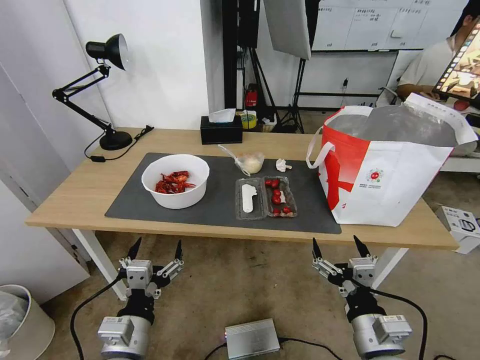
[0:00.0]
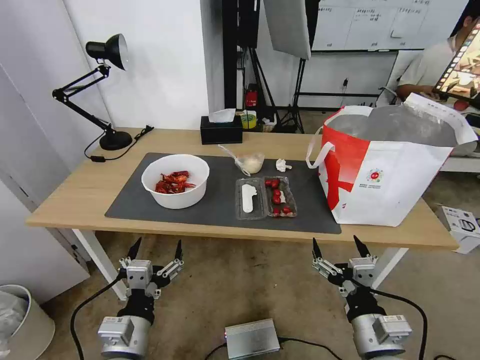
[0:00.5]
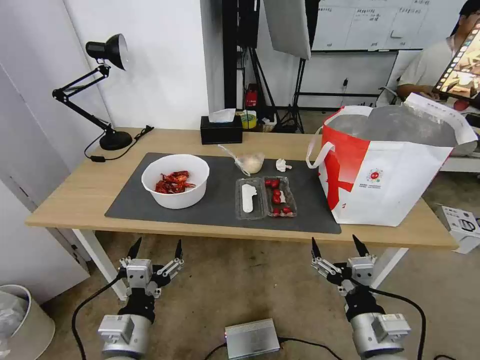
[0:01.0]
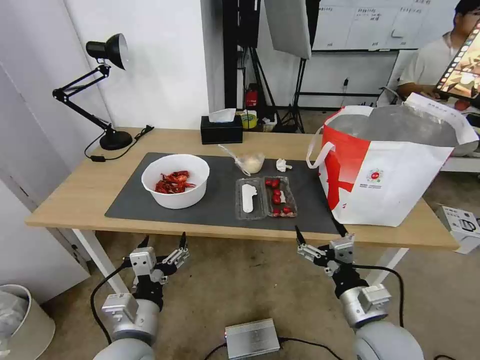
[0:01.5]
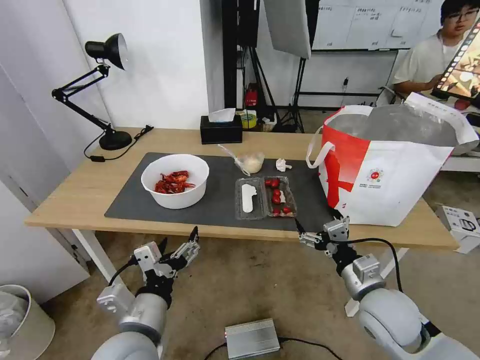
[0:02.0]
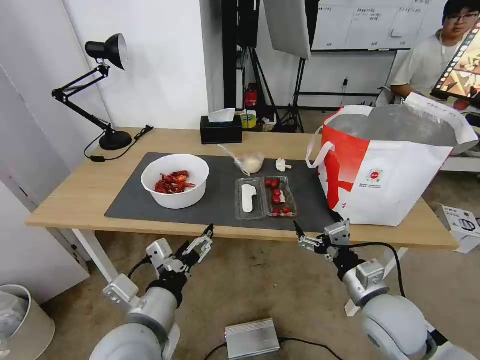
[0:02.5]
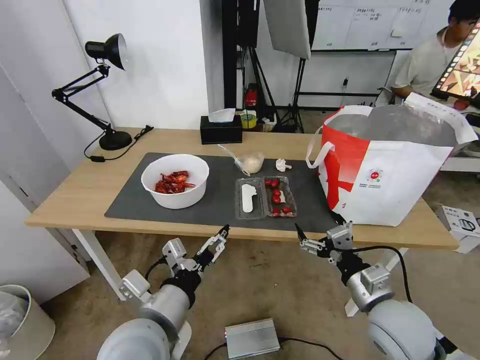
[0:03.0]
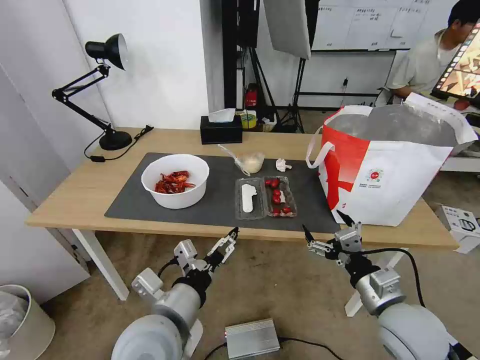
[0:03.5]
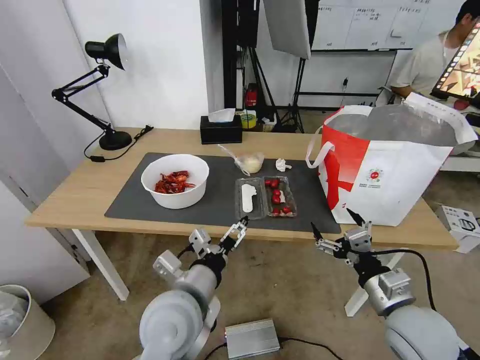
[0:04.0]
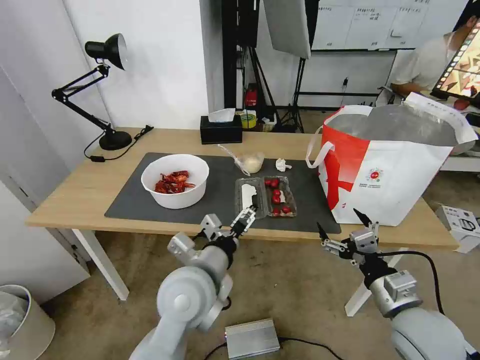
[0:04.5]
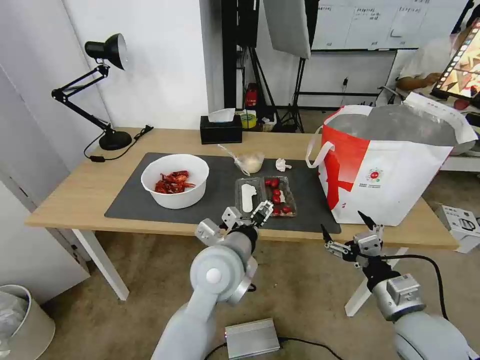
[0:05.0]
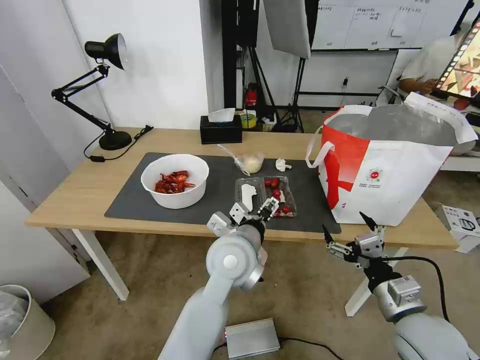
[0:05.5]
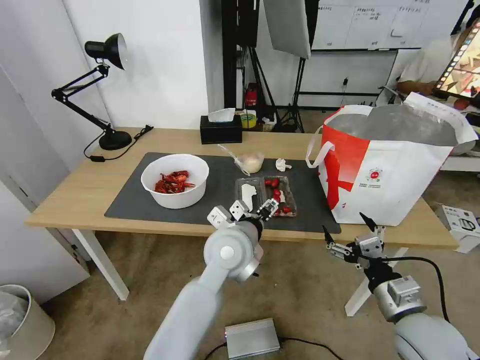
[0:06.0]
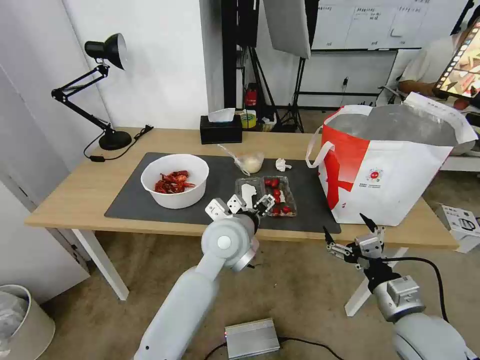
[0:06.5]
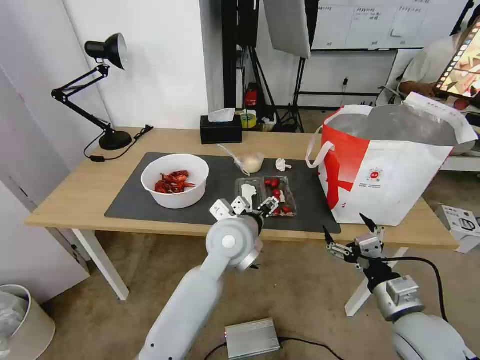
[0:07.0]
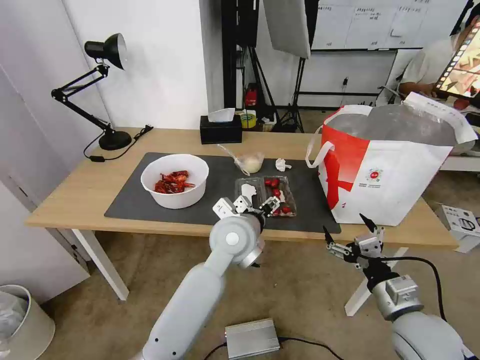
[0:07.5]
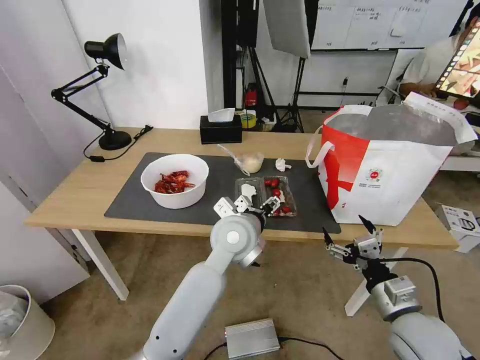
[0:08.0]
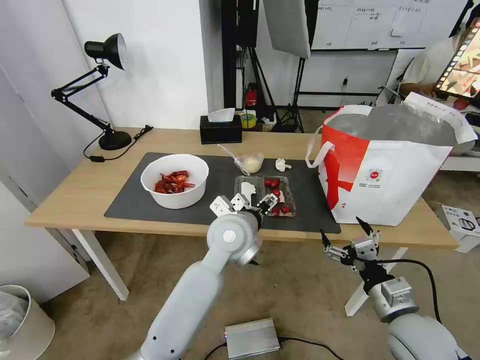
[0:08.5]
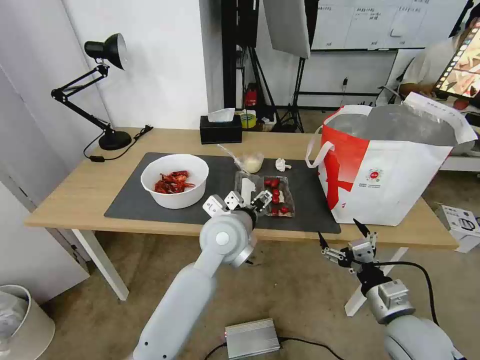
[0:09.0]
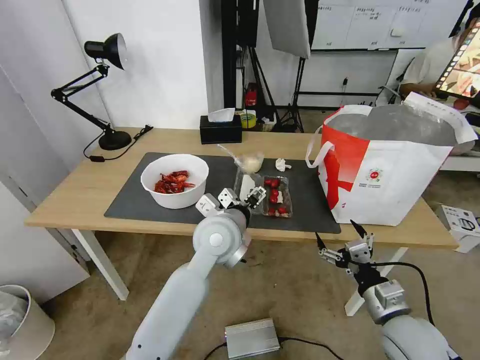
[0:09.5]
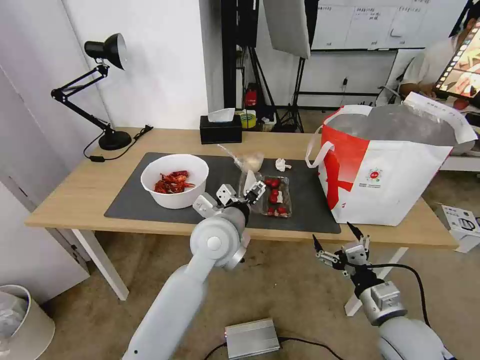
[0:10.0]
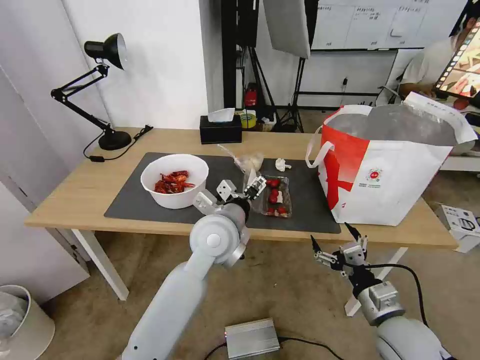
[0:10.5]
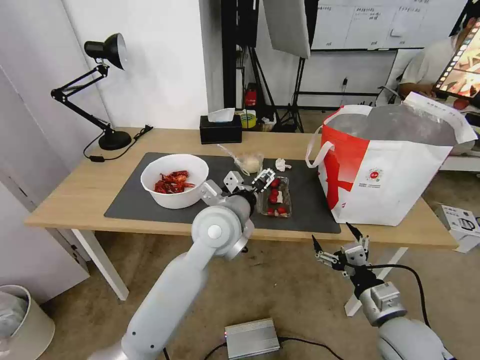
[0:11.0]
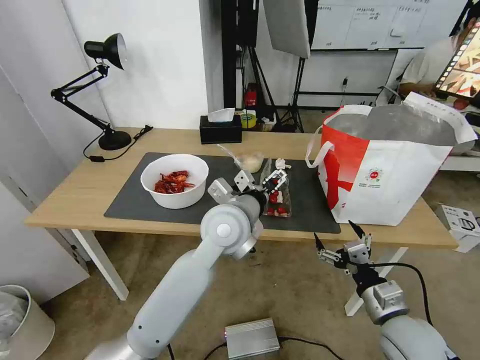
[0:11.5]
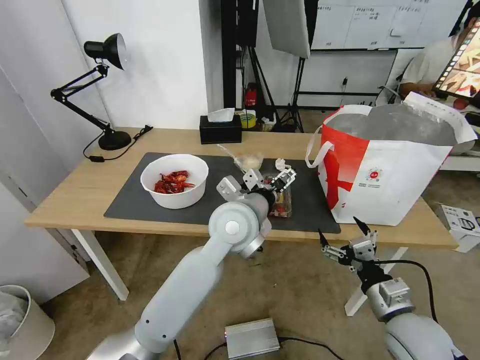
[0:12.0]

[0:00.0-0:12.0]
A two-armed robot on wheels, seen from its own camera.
Task of the whole recording: Pick up the trash from the table and place it into the takeout bag.
0:02.0 to 0:04.0: The right gripper ends up about 5 cm from where it was, while the left gripper shifts about 10 cm to the right and forward.
0:04.0 to 0:06.0: The left gripper moves forward and to the right, approximately 15 cm.
0:06.0 to 0:12.0: The grippers stay close to where they were, moving slightly.

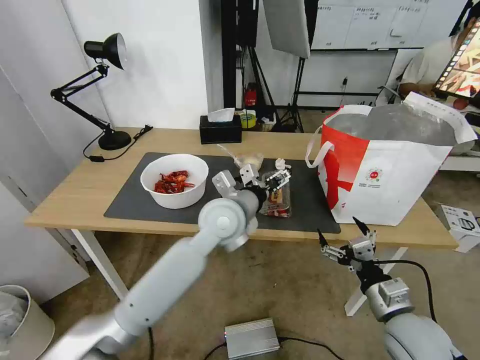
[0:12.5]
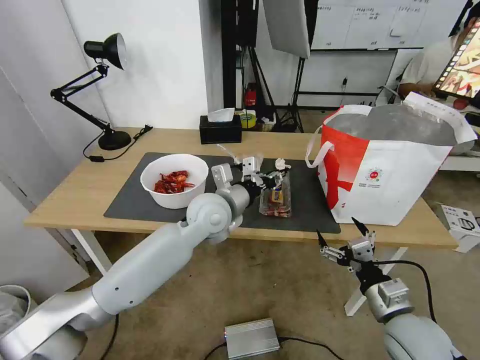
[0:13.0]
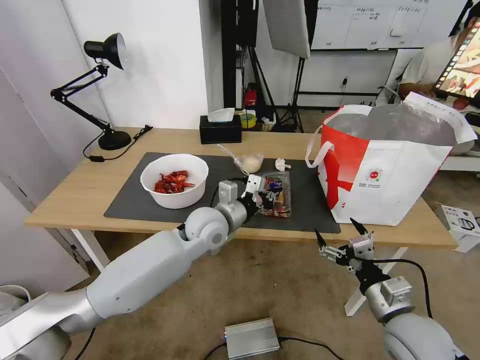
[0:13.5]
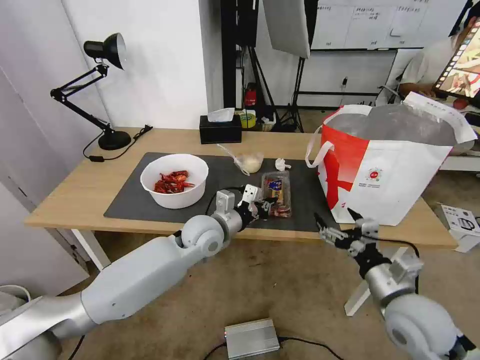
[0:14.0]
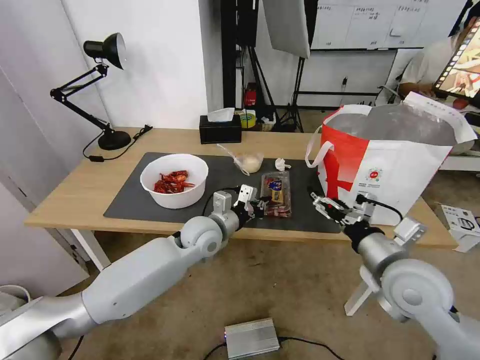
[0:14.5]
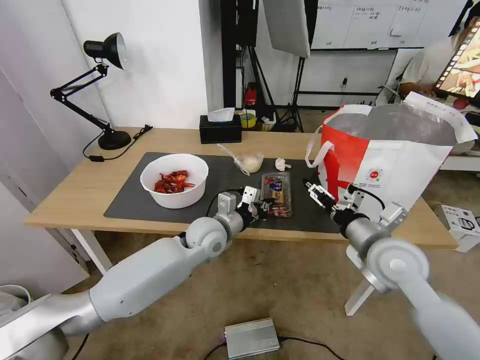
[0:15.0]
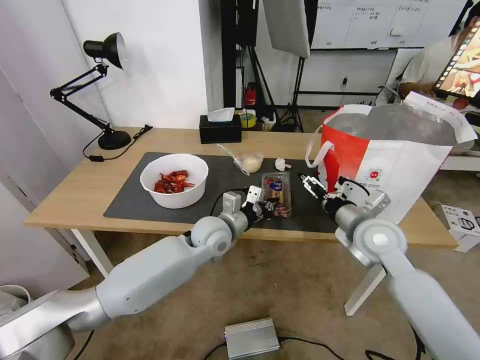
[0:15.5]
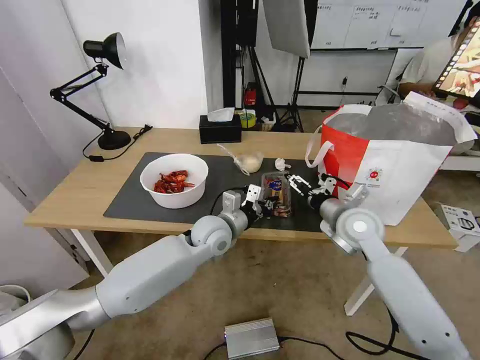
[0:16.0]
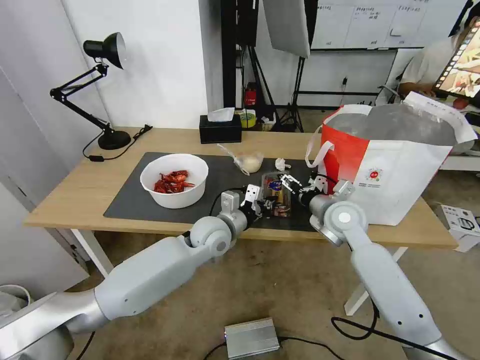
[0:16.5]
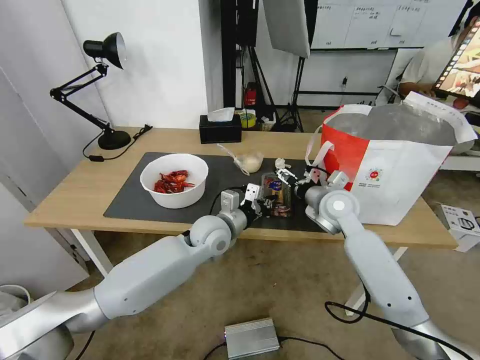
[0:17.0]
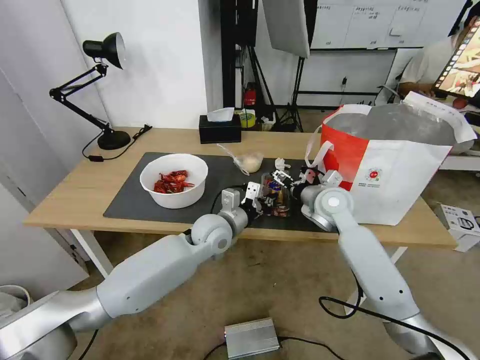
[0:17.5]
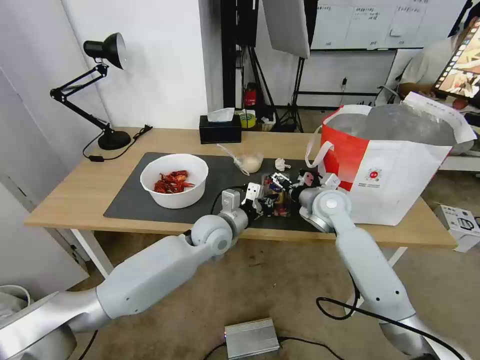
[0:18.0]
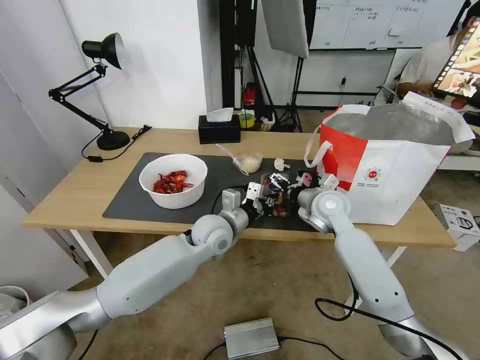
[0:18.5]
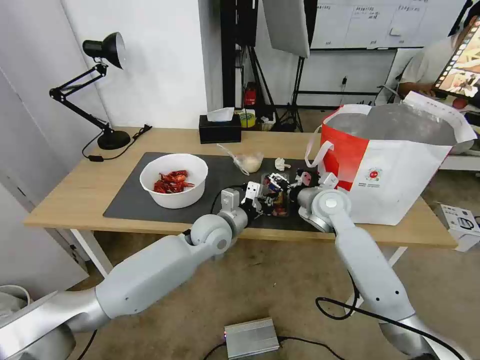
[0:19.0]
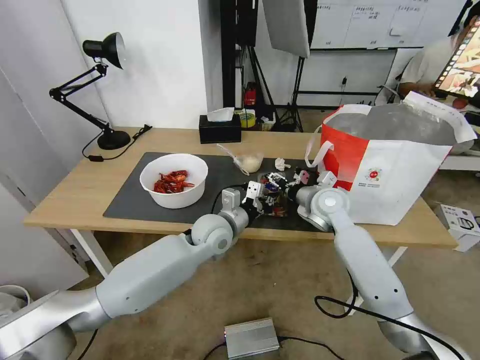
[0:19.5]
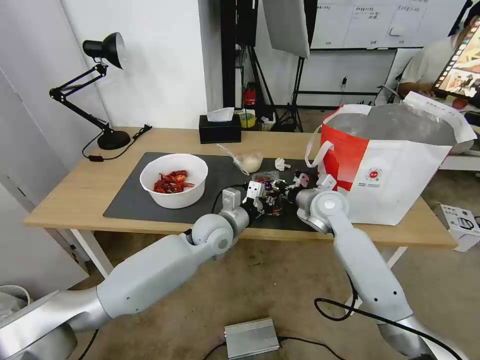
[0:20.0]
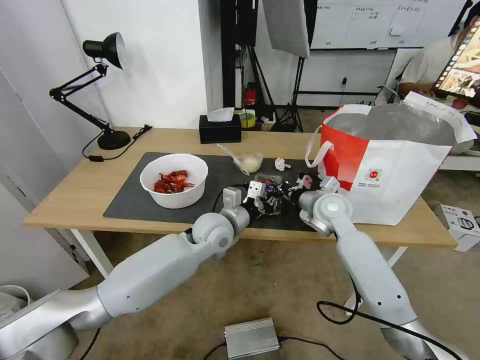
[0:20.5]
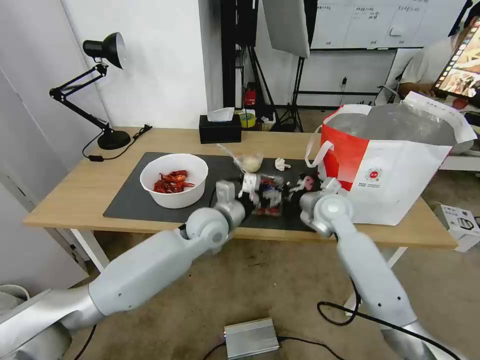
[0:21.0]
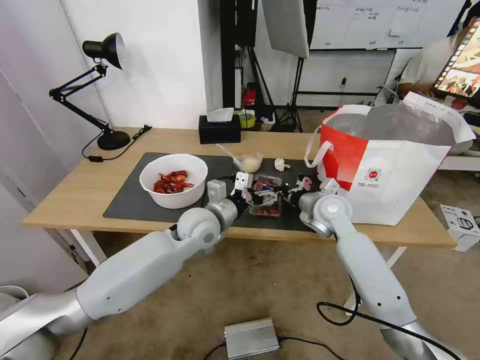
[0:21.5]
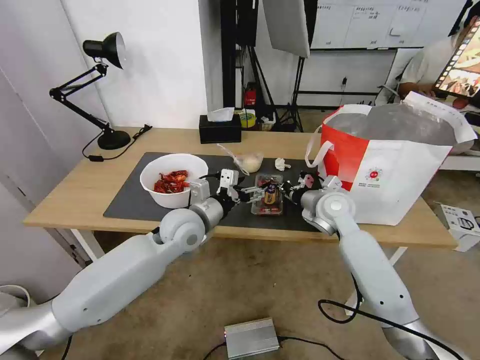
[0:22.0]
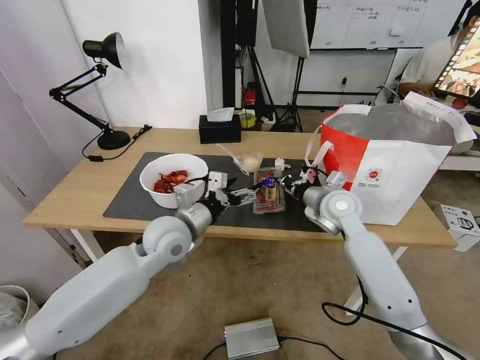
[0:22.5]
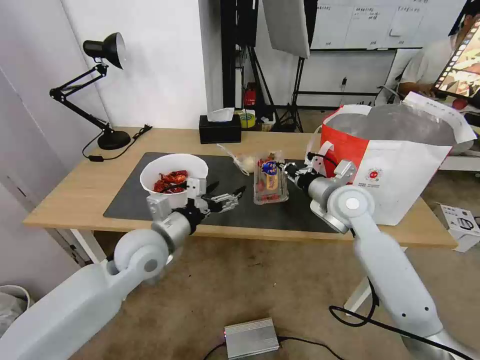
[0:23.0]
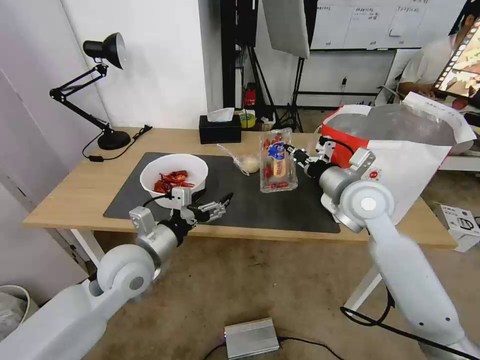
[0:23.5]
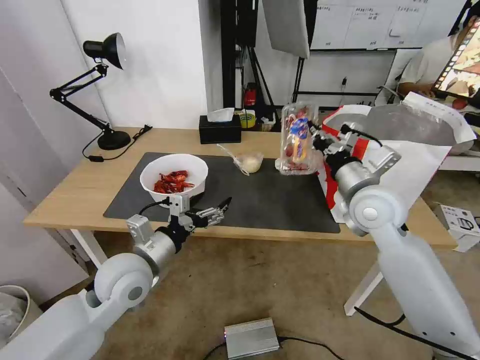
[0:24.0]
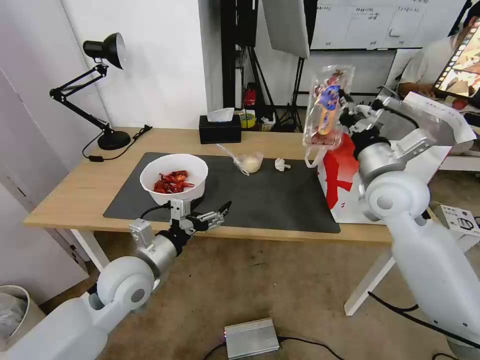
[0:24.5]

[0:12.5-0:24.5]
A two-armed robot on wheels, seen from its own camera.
Task of the whole recording: Pick up the trash from the table and place it into the takeout bag.
0:12.5 to 0:14.5: The right gripper is displaced upward and forward by roughly 10 cm. Meanwhile the left gripper is displaced downward and to the left by some 10 cm, and closes.
0:14.5 to 0:16.5: The right gripper goes roughly 15 cm forward.
0:16.5 to 0:18.5: The grippers make only small movements.
0:18.5 to 0:20.5: The right gripper closes up.
0:20.5 to 0:22.5: The left gripper is displaced to the left by some 10 cm, and opens up.
0:22.5 to 0:24.5: The left gripper heads backward and to the left, covering some 10 cm, while the right gripper shifts about 15 cm upward and backward.

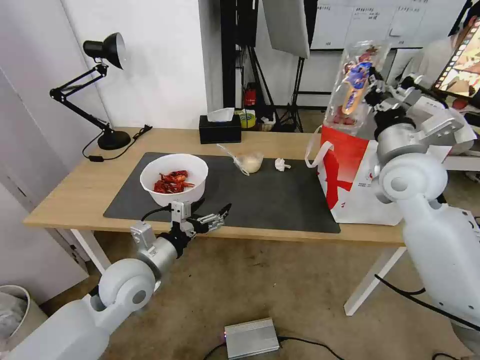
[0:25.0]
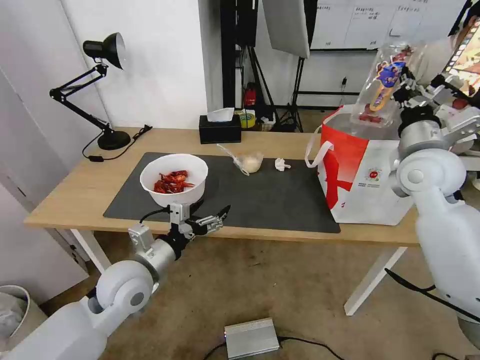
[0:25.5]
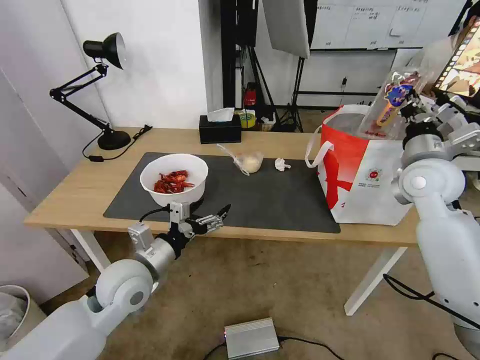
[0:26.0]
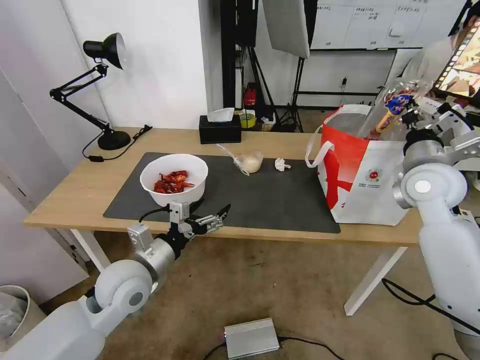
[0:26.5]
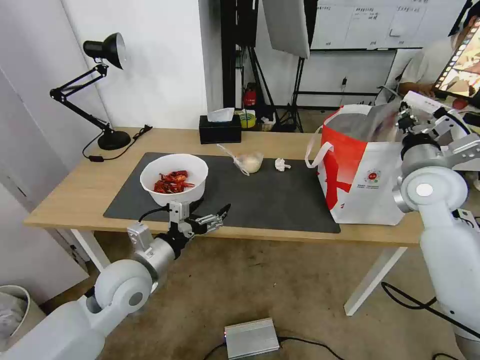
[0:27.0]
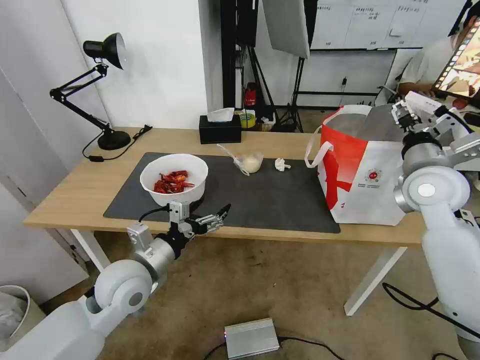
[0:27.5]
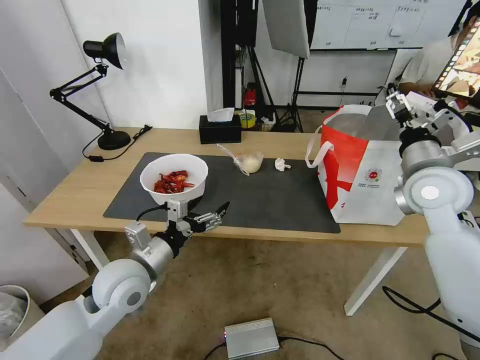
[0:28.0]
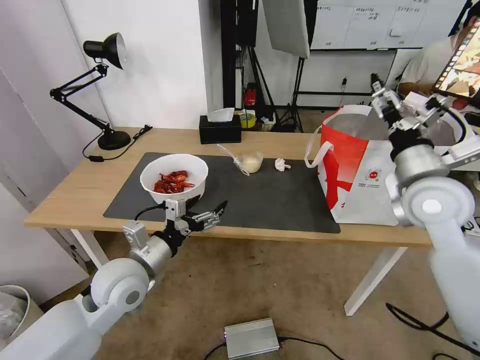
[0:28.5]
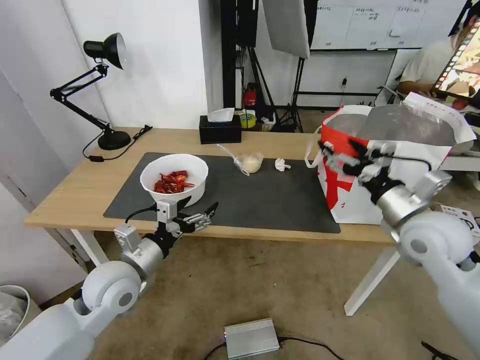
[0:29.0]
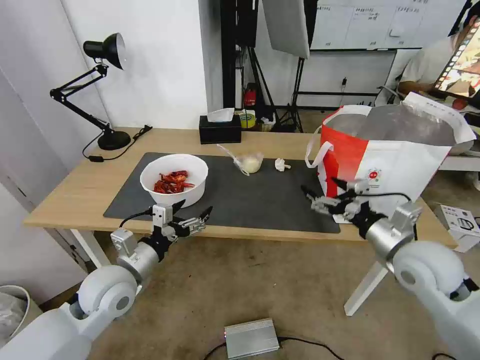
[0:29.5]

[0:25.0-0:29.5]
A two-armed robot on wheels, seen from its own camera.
Task of the whole recording: Pick up the trash from the table and place it into the takeout bag.
0:25.0 to 0:27.0: The right gripper moves to the right, approximately 5 cm.
0:27.0 to 0:29.5: The right gripper travels backward and downward by some 15 cm, and opens.
